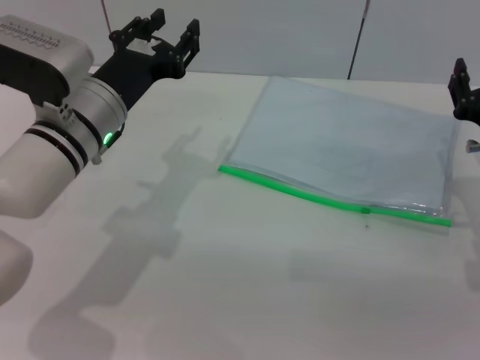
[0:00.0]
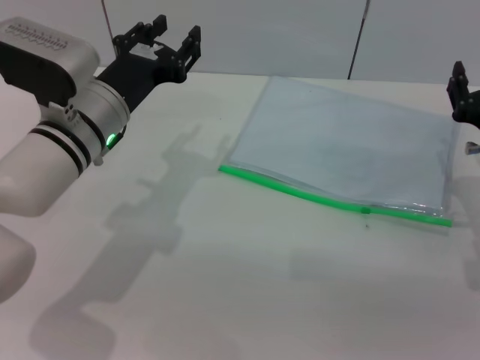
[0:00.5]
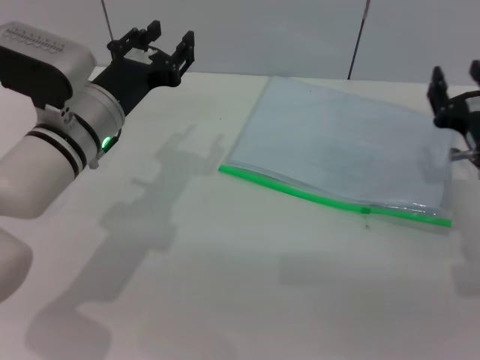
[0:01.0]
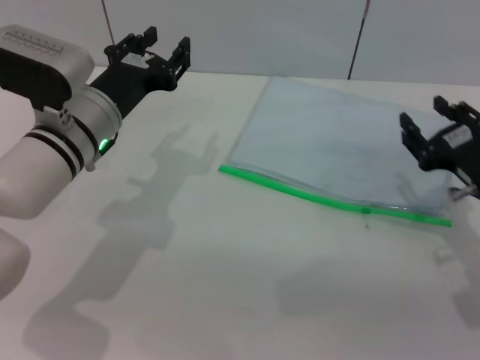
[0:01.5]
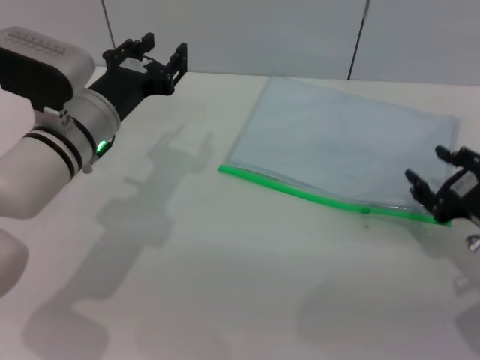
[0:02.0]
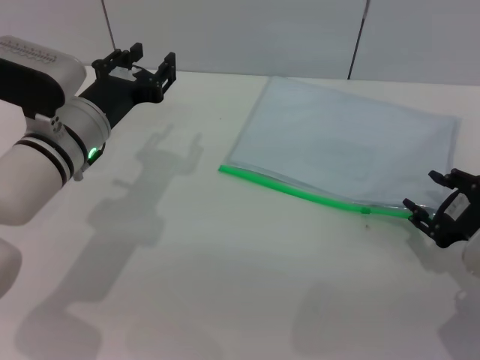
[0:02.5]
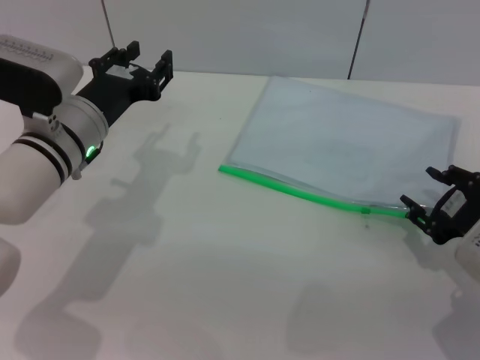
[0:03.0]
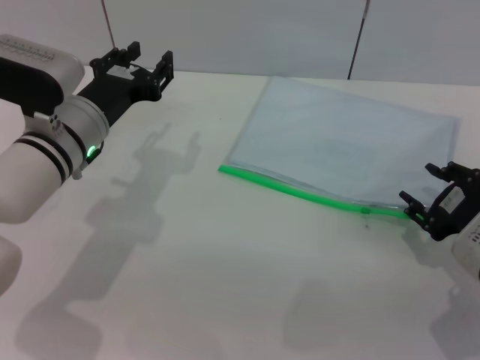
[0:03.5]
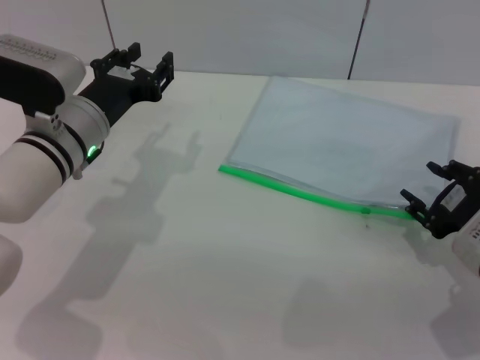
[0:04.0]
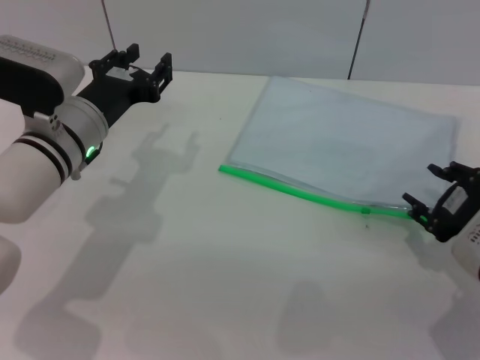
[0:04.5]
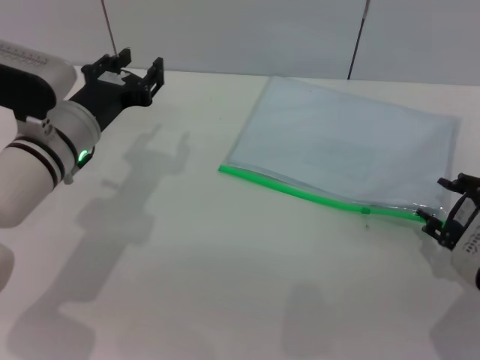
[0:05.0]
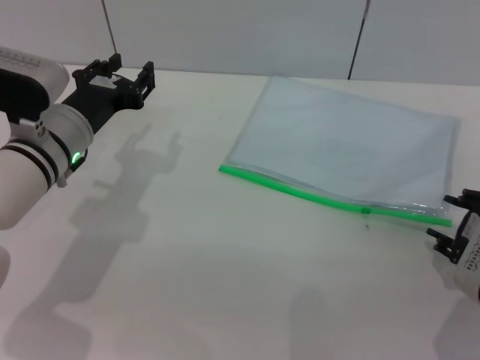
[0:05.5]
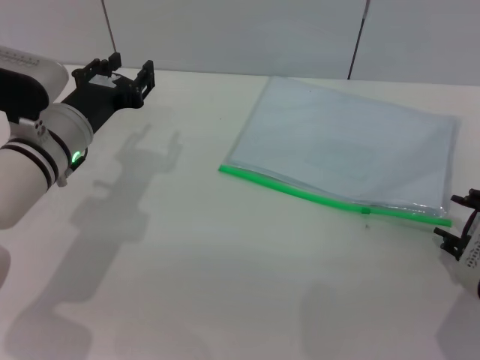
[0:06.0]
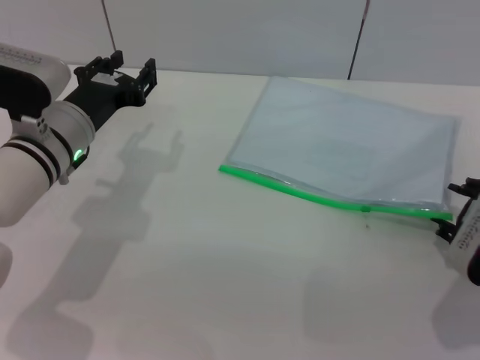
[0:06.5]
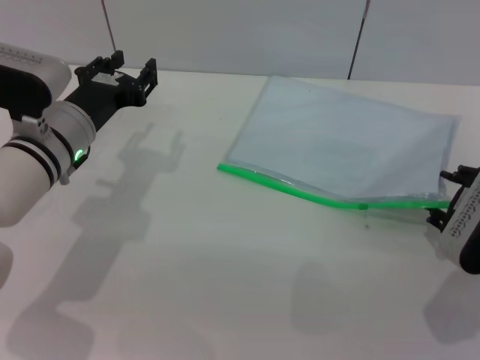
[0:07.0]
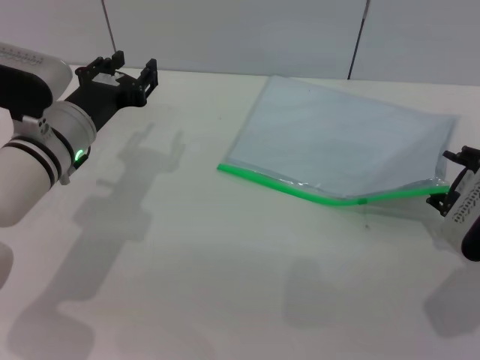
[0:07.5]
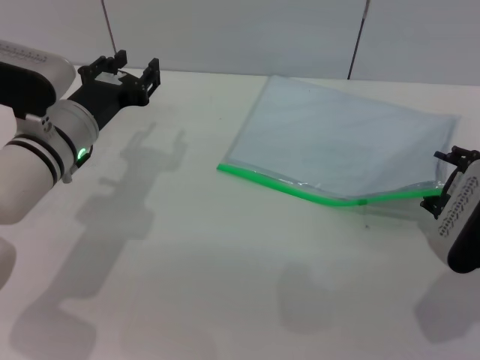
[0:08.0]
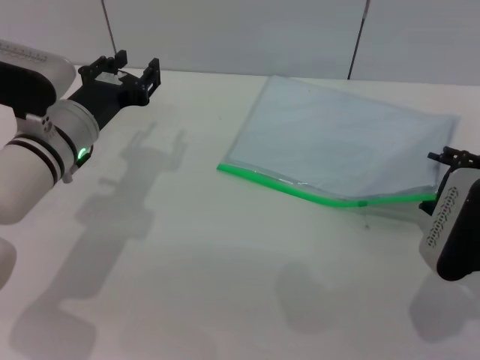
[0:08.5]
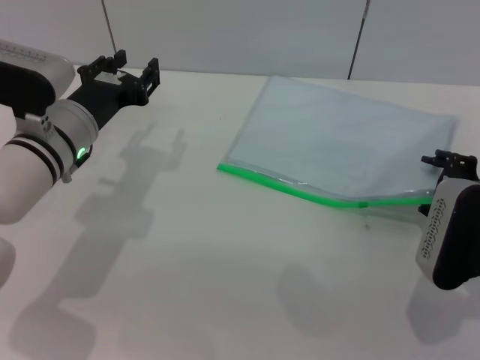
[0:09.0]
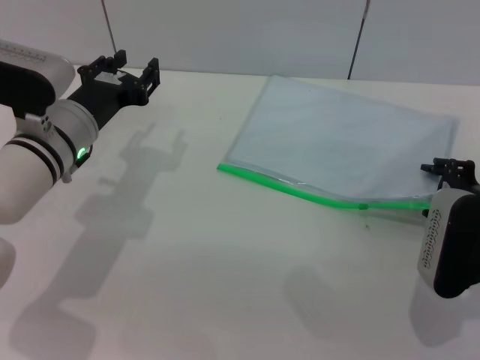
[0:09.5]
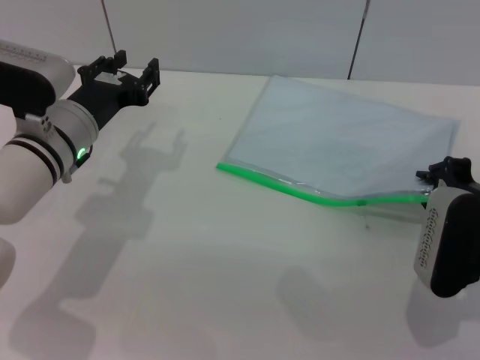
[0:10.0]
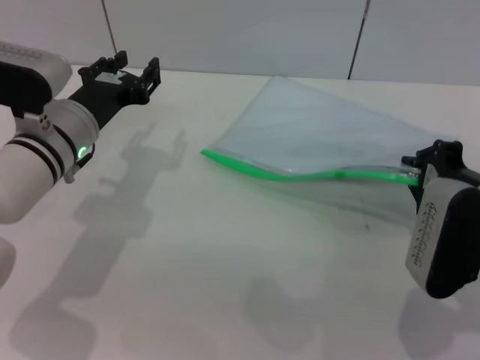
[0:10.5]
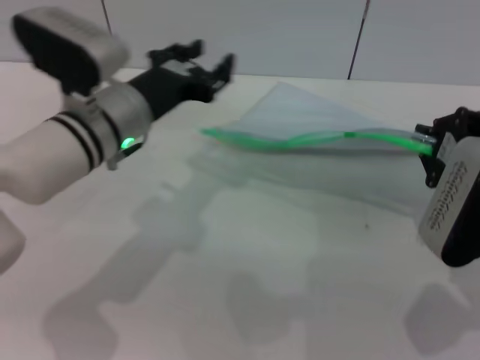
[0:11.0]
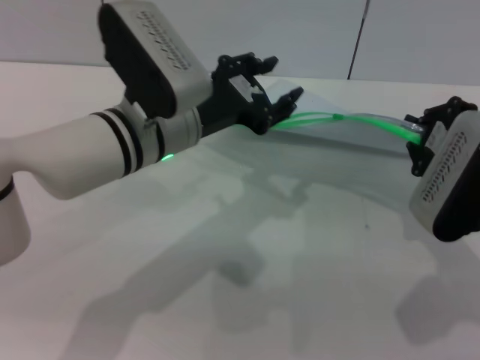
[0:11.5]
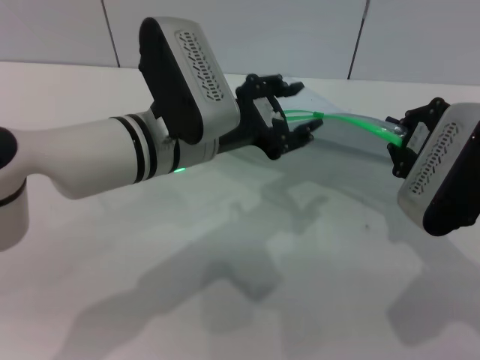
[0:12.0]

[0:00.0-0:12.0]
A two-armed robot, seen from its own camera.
Step, 0:00.0 to 0:11.0: Pick up the transparent plastic bag with the right gripper.
0:00.0 to 0:02.0: The right gripper heads backward, covering about 5 cm.
0:02.0 to 0:04.0: The grippers make only small movements.
0:06.0 to 0:08.0: The grippers make only small movements.
0:08.0 to 0:10.0: The right gripper closes.
0:10.0 to 0:12.0: The right gripper heads upward, covering about 5 cm, and closes its fingers; the left gripper is displaced to the right and upward by some 10 cm.

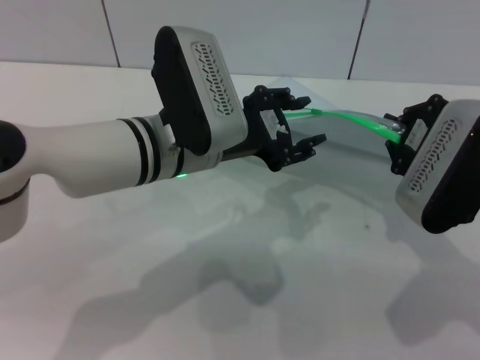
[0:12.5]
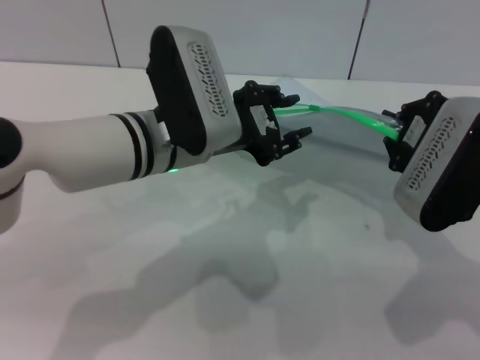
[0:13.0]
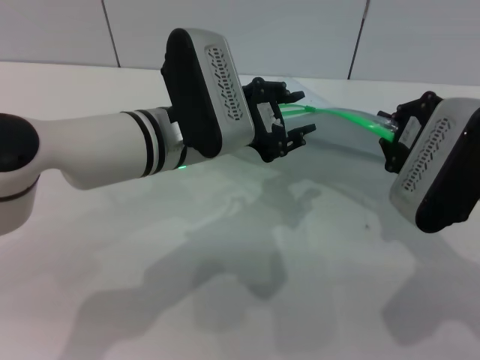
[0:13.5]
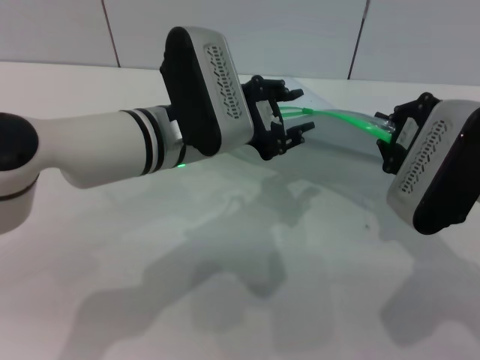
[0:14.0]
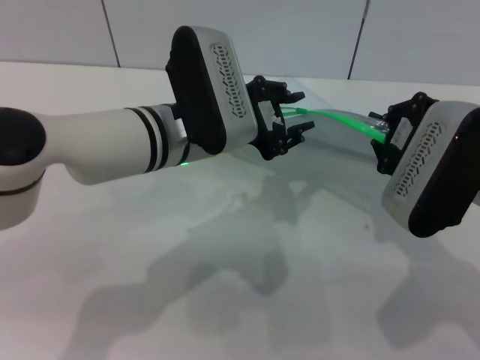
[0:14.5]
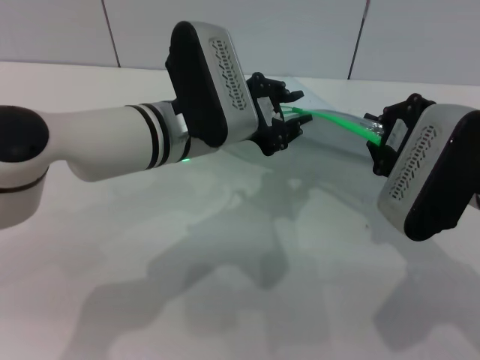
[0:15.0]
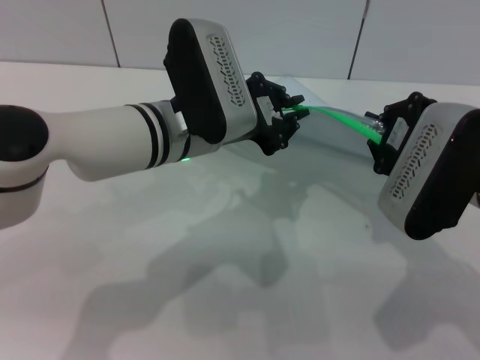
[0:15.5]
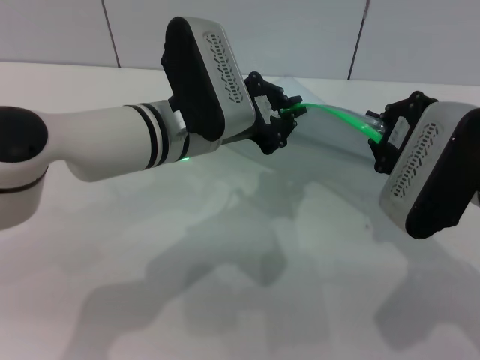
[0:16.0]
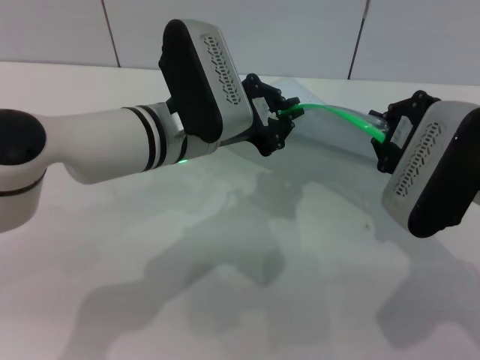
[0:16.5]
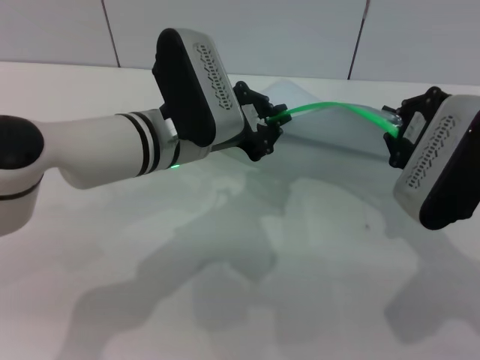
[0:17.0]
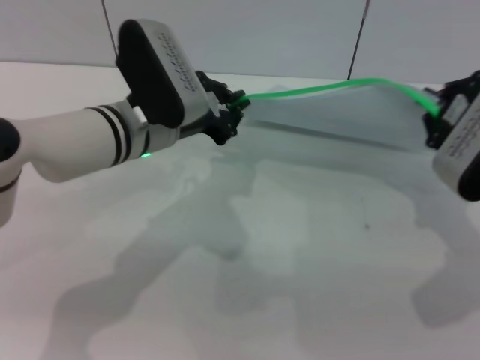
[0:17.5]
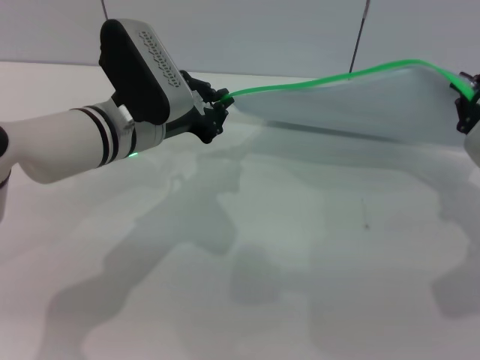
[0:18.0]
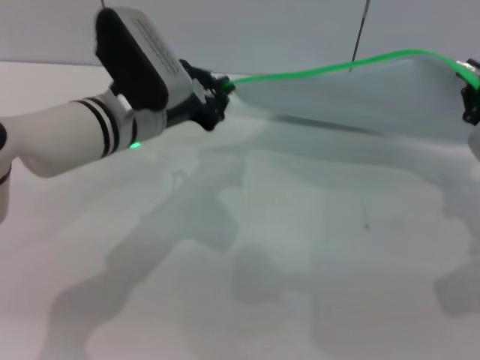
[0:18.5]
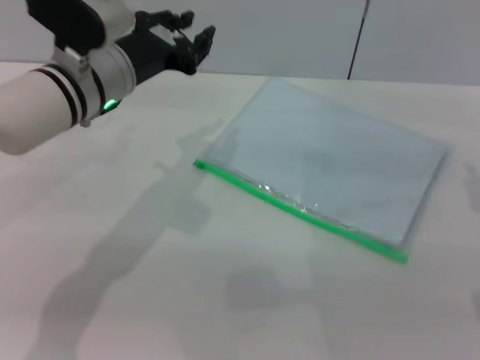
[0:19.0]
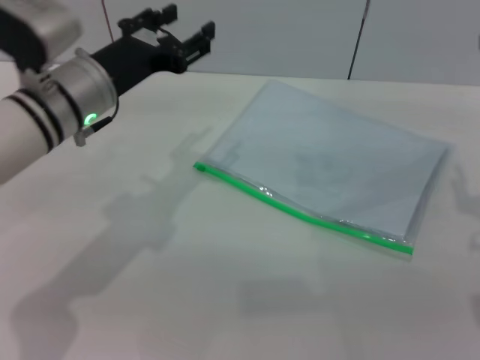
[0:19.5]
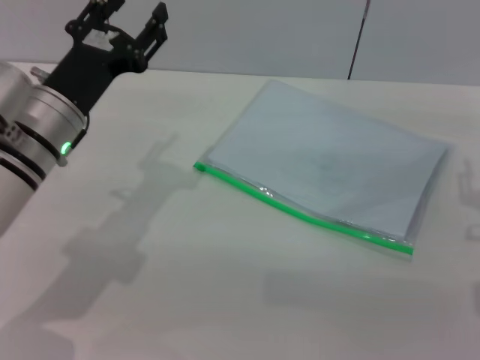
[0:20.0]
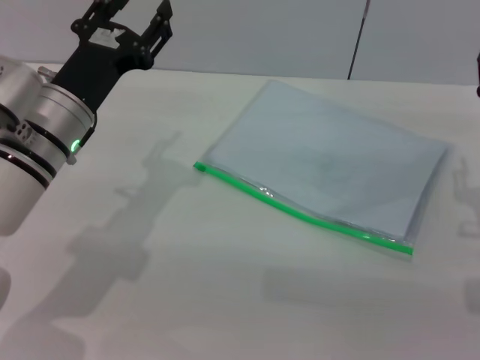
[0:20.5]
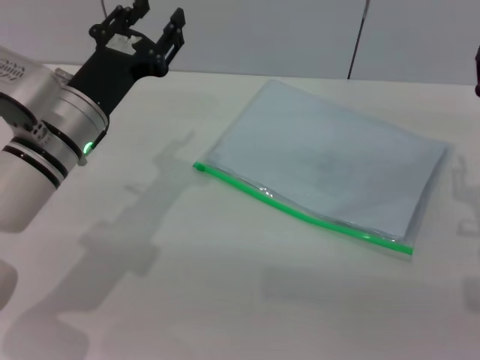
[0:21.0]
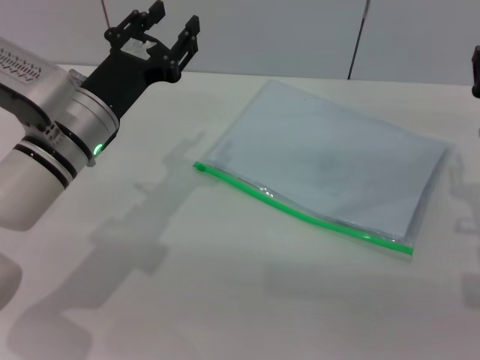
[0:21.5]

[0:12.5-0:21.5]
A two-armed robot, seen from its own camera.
Step, 0:12.5 to 0:18.5: Pulling up the zipper on the transparent plastic bag with the left gripper to close it.
0:12.5 to 0:14.5: The grippers make only small movements.
0:14.5 to 0:17.0: The left gripper closes up.
0:17.0 to 0:19.5: The left gripper moves to the left, some 10 cm, and opens up, while the right gripper goes some 5 cm to the right, and opens its fingers.
0:19.5 to 0:21.5: The right gripper moves downward, approximately 5 cm.
